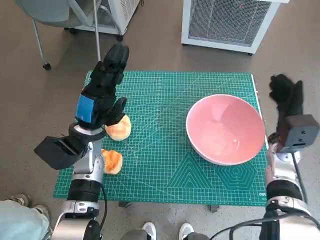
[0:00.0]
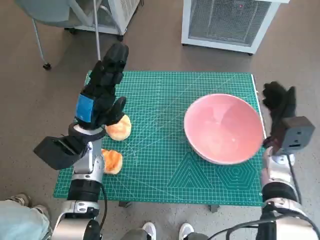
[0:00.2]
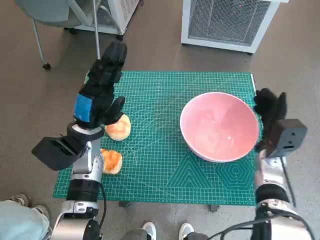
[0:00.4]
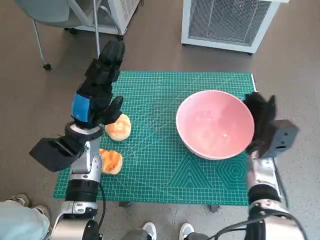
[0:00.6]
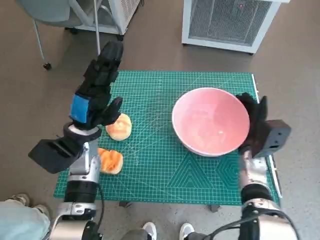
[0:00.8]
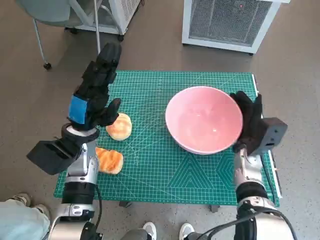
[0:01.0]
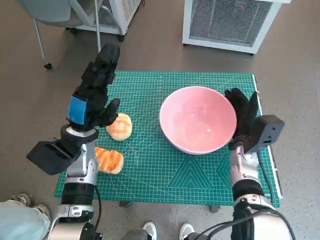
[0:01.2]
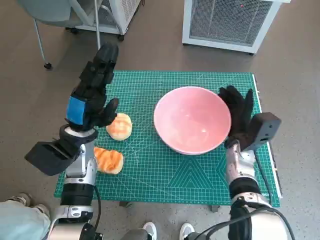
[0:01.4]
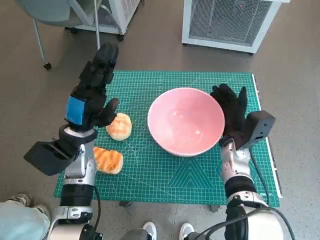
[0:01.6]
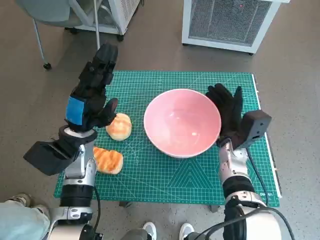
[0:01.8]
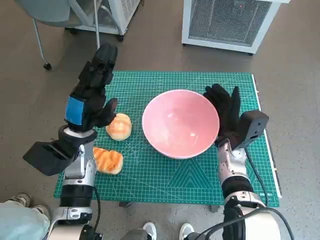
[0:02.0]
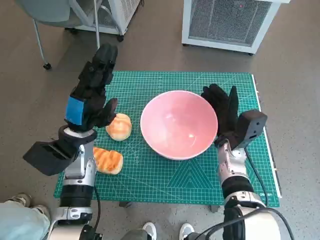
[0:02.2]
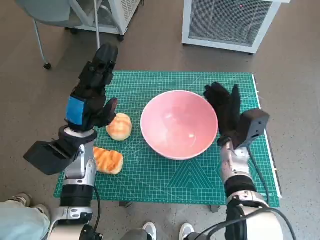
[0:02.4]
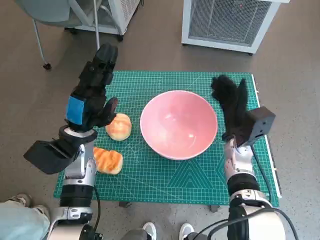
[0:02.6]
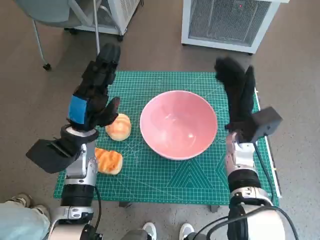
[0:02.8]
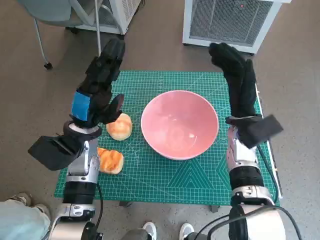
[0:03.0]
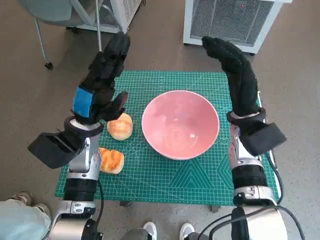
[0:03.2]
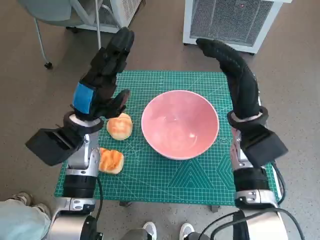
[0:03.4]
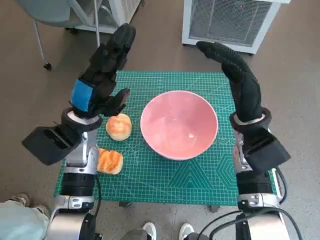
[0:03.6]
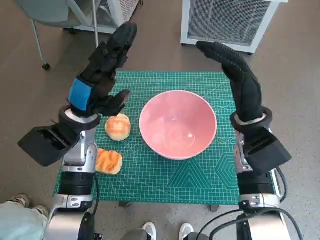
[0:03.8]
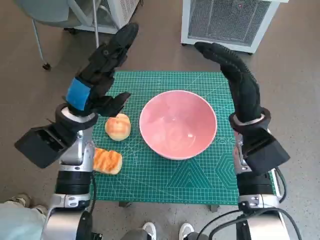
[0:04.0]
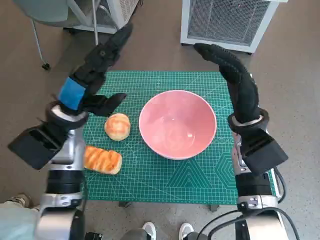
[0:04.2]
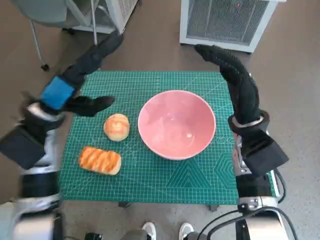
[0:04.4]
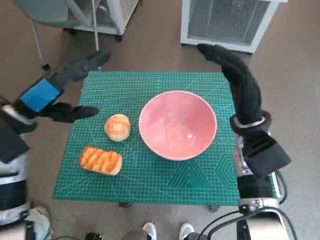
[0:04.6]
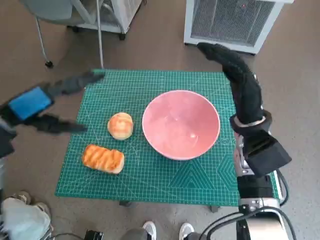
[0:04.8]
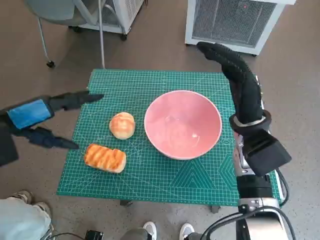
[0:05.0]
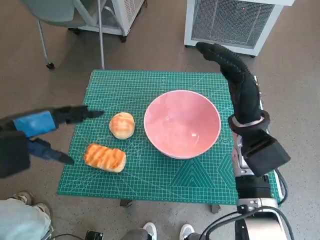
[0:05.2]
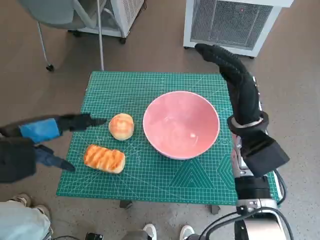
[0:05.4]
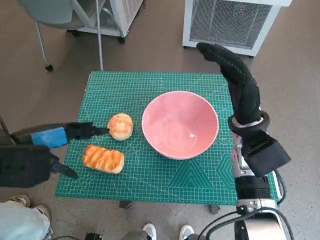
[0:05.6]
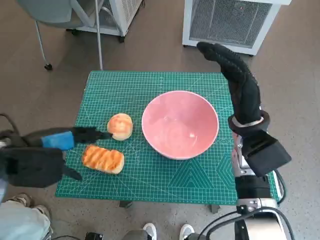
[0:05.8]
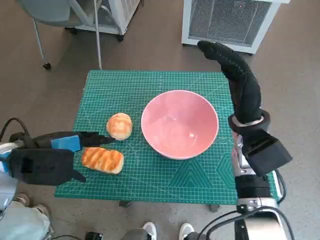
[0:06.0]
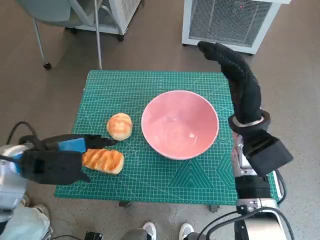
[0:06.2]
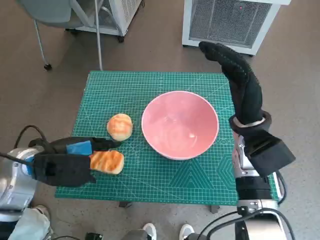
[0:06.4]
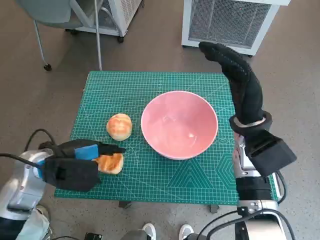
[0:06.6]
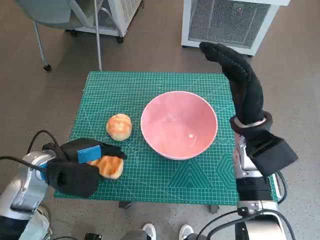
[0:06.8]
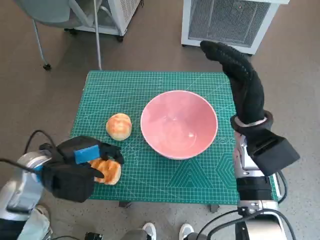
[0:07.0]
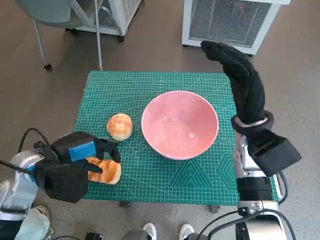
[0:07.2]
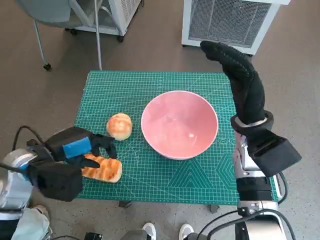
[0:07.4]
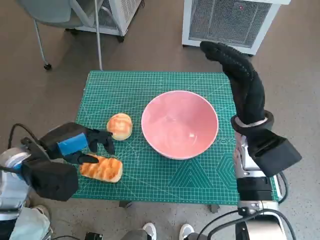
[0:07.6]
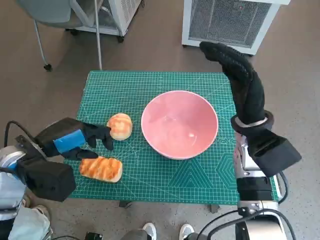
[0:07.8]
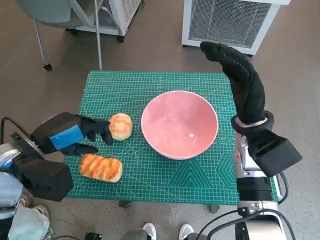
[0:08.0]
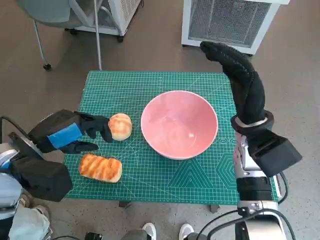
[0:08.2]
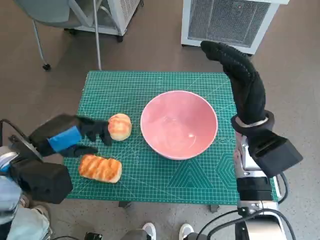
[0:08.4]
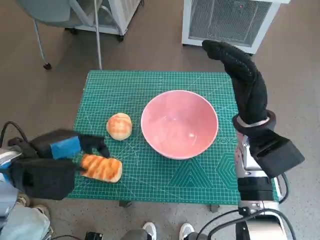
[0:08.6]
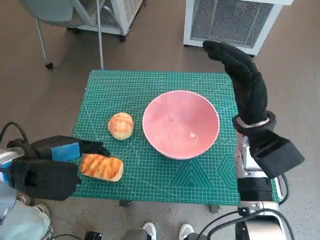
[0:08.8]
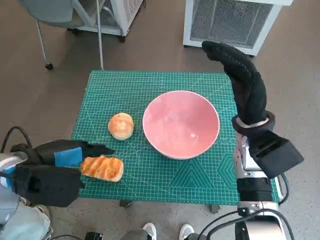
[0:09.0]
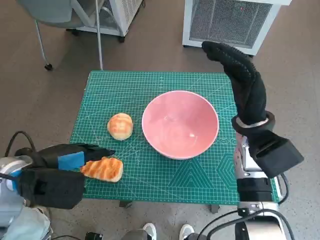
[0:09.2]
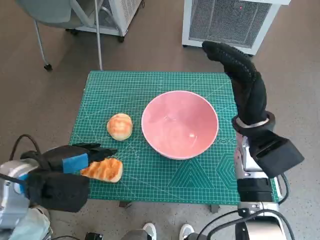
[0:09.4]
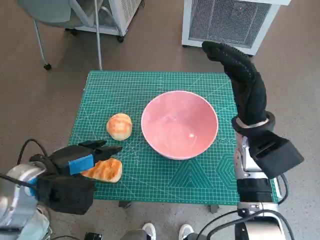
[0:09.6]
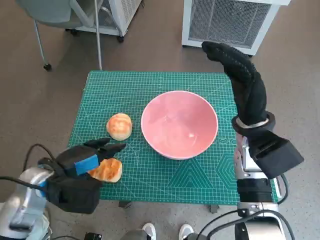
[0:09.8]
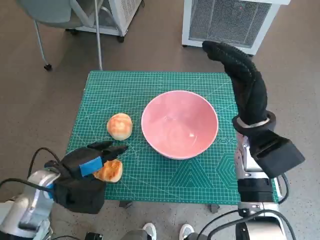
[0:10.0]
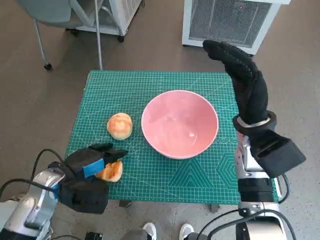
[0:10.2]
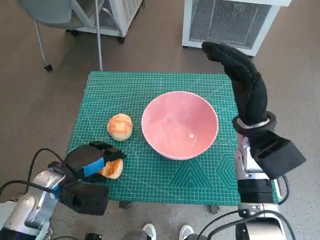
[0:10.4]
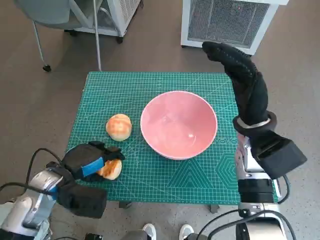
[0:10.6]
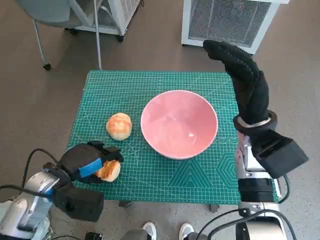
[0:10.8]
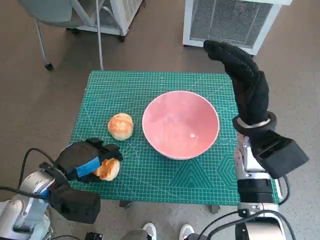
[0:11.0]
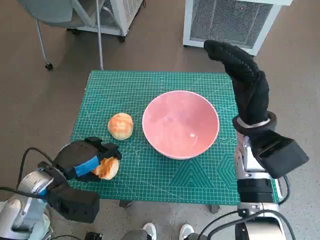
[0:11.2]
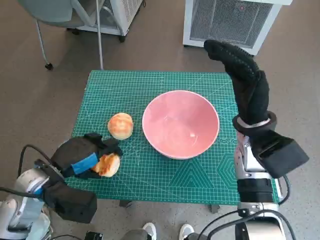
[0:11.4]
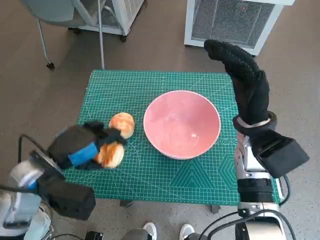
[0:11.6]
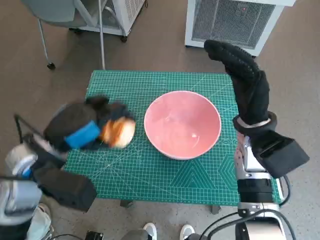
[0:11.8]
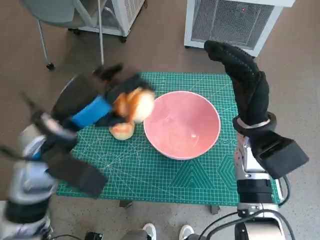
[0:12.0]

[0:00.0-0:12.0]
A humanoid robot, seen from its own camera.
Task of the whole recording: Push the bowl to the center of the table and put the bread into the bowl.
Step, 0:00.0 to 0:02.6: Move the pink bowl to the center of table with right hand.
Step, 0:02.8 to 0:10.2: Grasp the long bread with left hand.
0:00.0 to 0:01.6: The right hand goes approximately 10 cm to the left.
0:01.6 to 0:03.0: The right hand heads upward, covering roughly 5 cm.
0:03.0 to 0:04.4: The left hand heads upward, covering some 5 cm.
0:04.4 to 0:06.0: The left hand heads backward, covering about 5 cm.
0:09.0 to 0:10.4: The left hand travels downward by roughly 10 cm.
0:10.4 to 0:12.0: The left hand moves upward, some 15 cm.

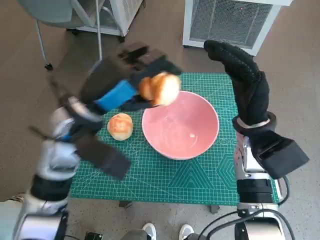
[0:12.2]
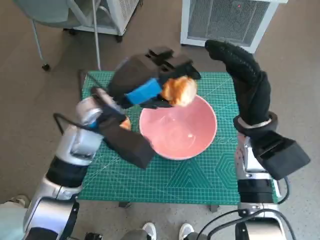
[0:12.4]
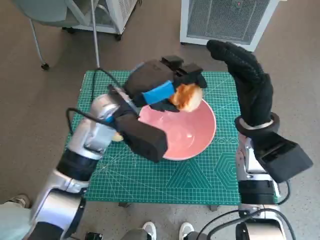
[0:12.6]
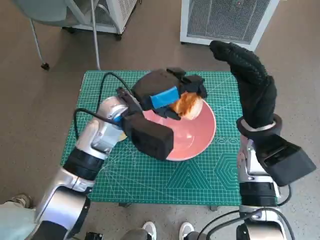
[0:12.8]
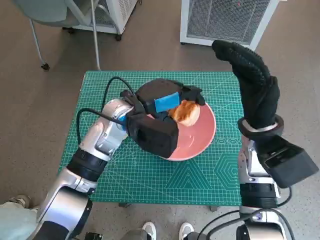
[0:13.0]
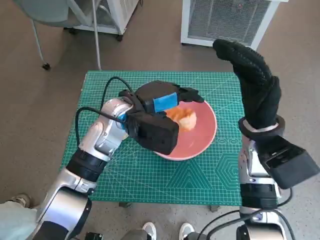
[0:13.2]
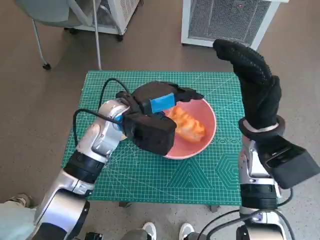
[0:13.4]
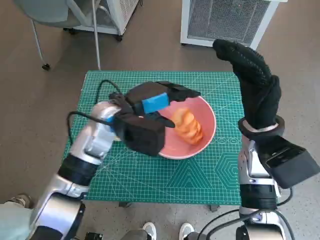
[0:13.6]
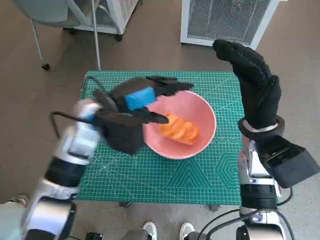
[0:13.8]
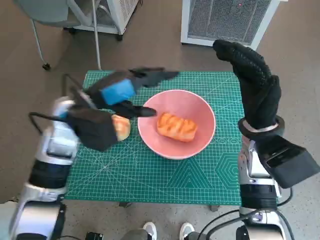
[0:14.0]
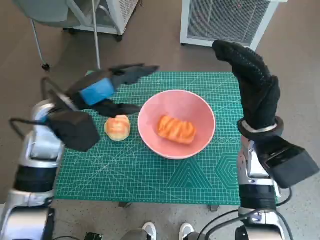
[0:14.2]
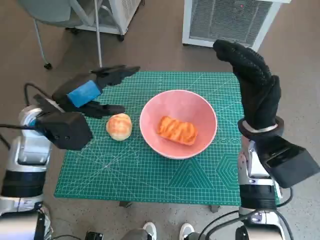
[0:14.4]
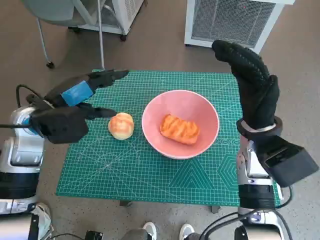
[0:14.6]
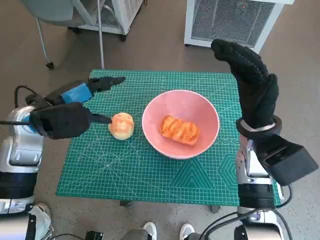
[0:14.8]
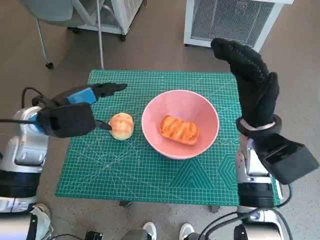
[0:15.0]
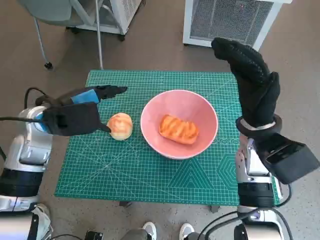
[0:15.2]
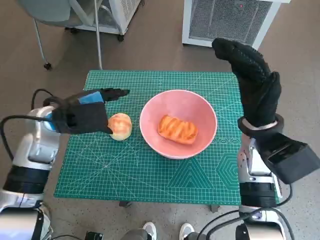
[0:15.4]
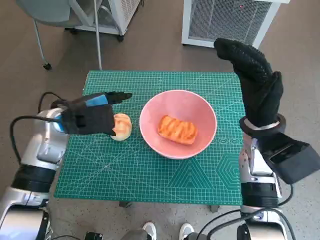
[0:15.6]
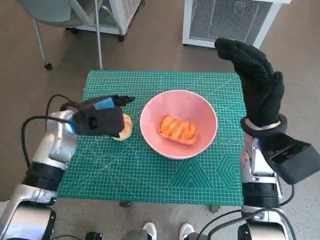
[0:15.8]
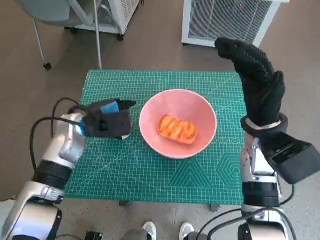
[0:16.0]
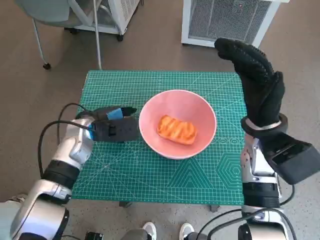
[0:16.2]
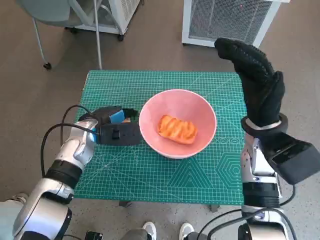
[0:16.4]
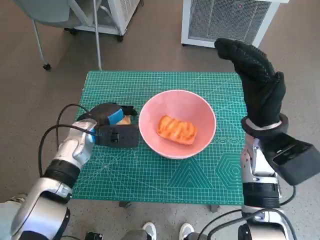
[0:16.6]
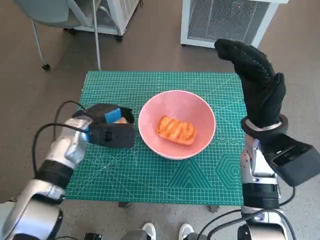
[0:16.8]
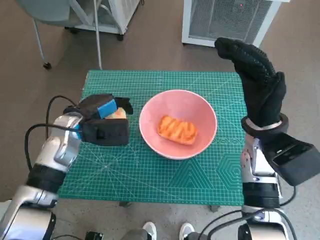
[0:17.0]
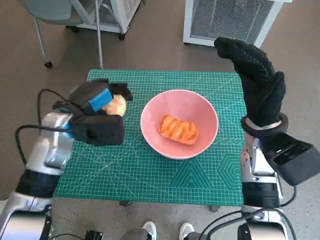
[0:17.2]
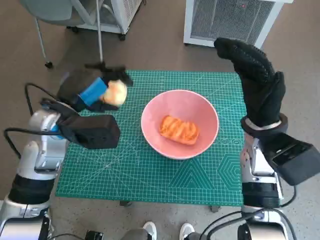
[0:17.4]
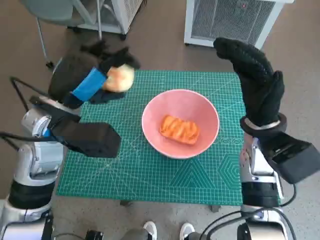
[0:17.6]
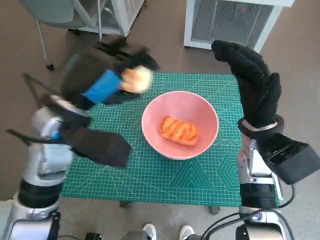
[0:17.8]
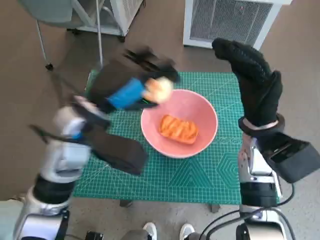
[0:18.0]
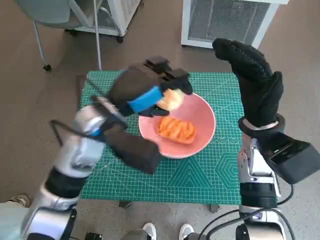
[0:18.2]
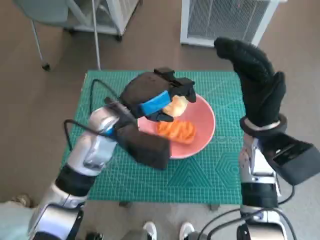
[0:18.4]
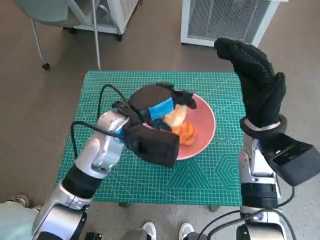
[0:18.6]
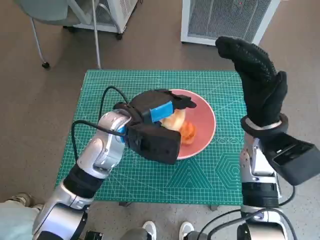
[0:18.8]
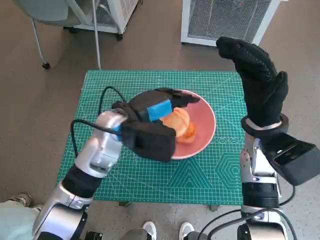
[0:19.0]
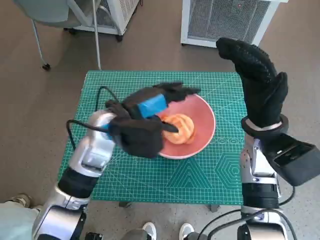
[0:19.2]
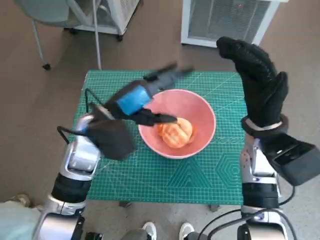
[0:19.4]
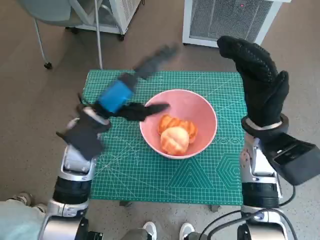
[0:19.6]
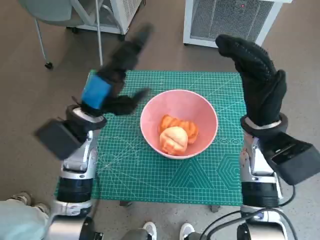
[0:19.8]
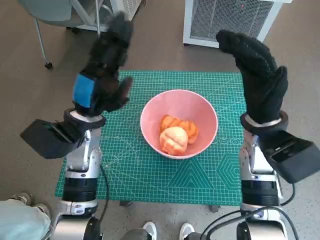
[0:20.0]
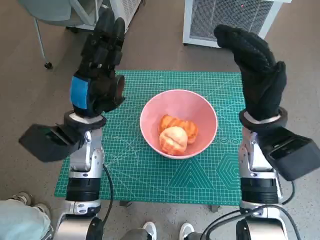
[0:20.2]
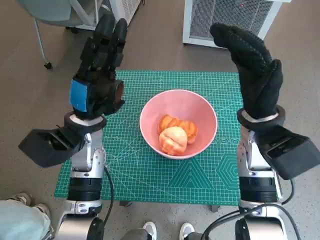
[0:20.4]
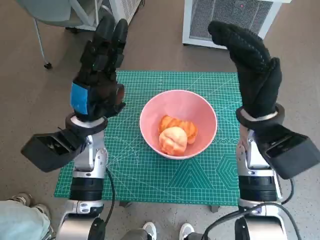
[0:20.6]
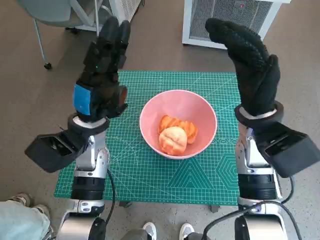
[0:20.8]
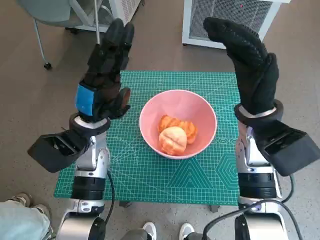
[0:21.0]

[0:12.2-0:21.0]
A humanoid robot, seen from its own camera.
Task of the whole recording: Push the bowl to the center of the table and put the bread into the bowl.
Step, 0:14.0 to 0:16.4: Grasp the round bread with left hand.
Step, 0:16.6 to 0:19.2: Place the round bread in pink bowl with left hand.
0:12.2 to 0:13.6: The left hand goes about 5 cm forward.
0:13.6 to 0:15.2: The left hand is displaced to the left by about 10 cm.
0:15.2 to 0:16.6: The left hand is displaced downward by roughly 10 cm.
0:16.6 to 0:18.0: The left hand travels upward, backward and to the right by roughly 15 cm.
